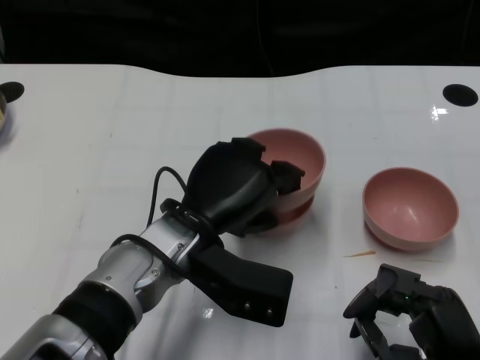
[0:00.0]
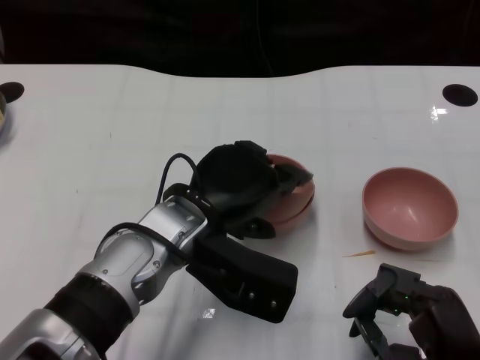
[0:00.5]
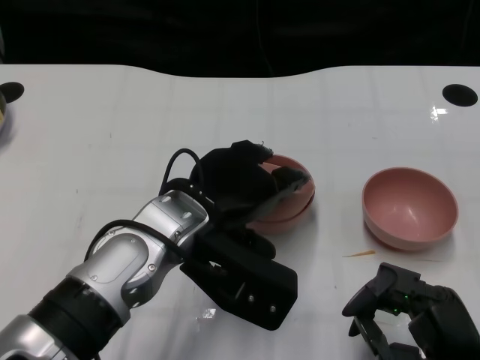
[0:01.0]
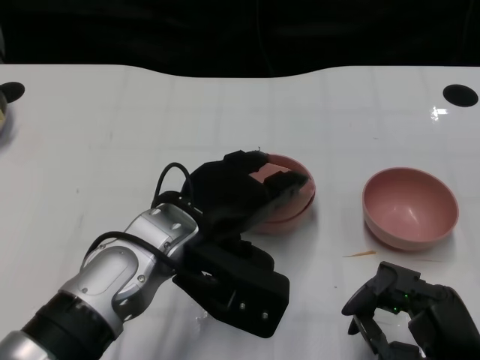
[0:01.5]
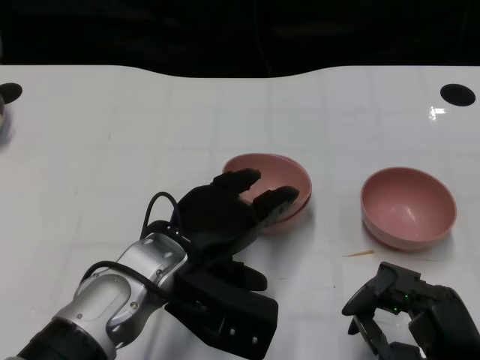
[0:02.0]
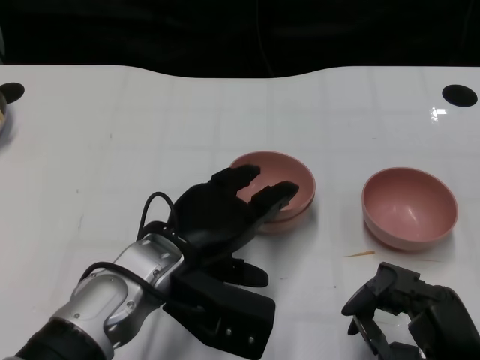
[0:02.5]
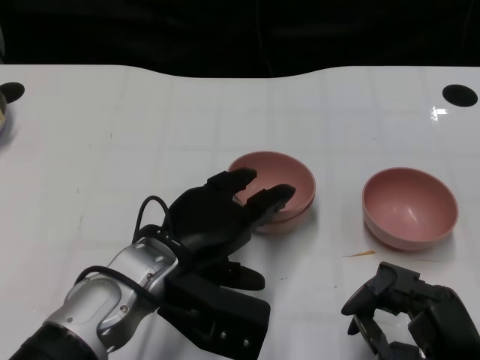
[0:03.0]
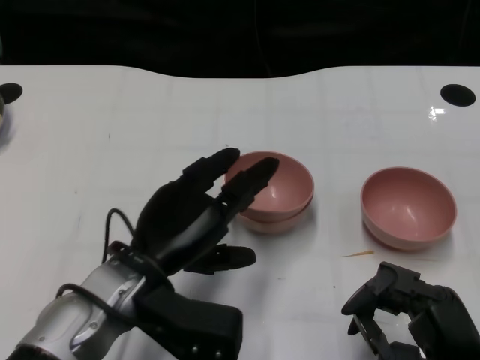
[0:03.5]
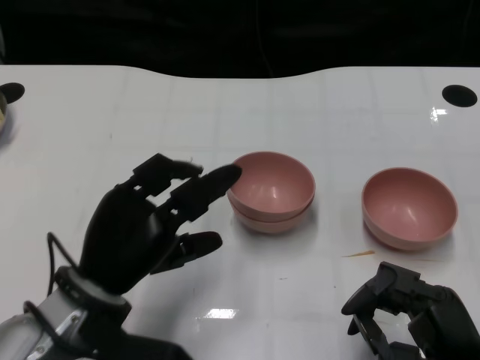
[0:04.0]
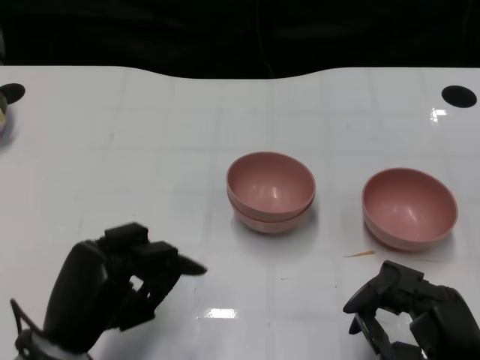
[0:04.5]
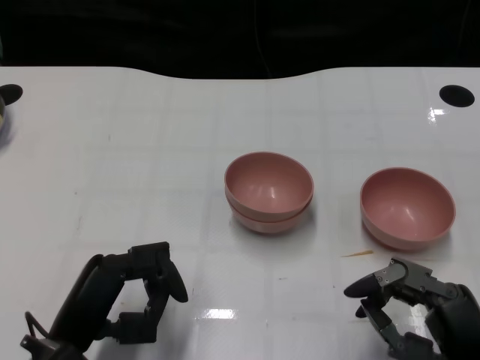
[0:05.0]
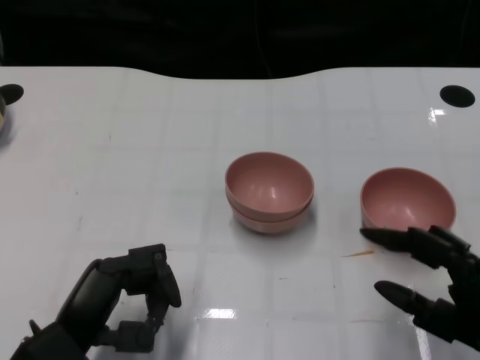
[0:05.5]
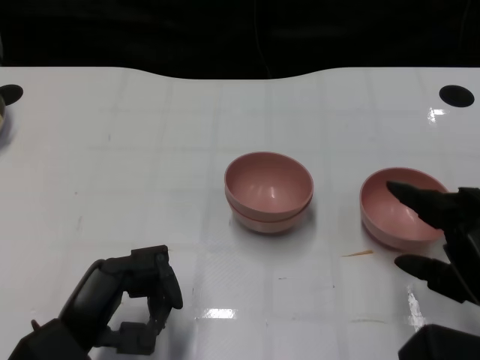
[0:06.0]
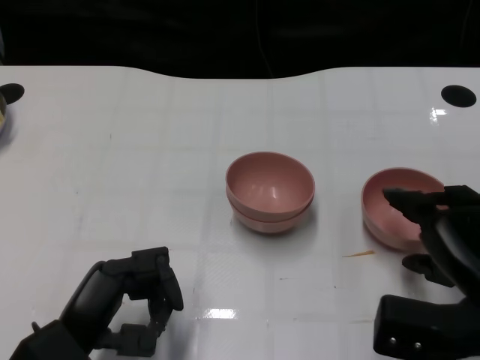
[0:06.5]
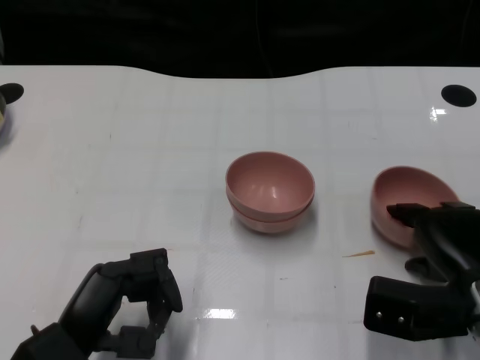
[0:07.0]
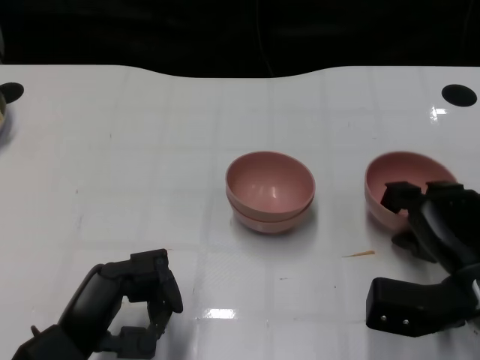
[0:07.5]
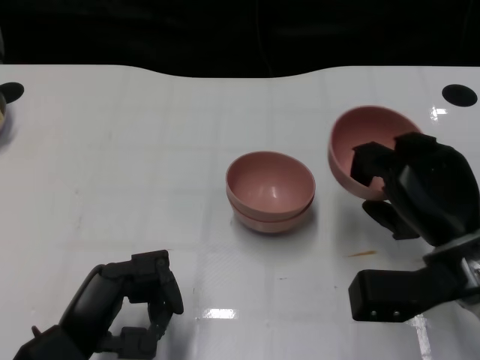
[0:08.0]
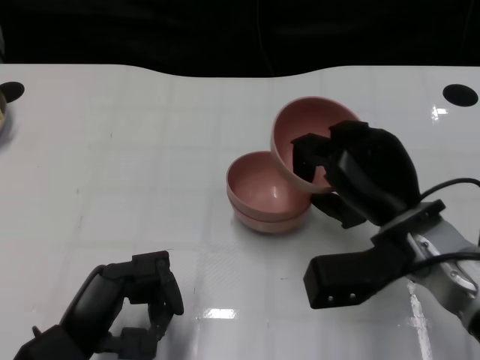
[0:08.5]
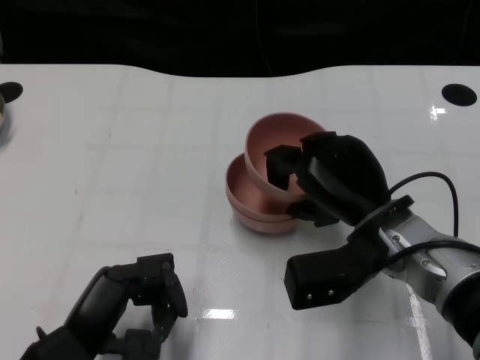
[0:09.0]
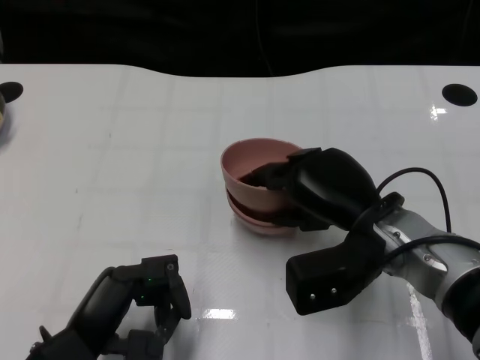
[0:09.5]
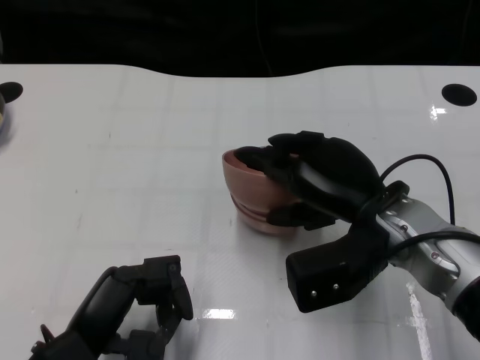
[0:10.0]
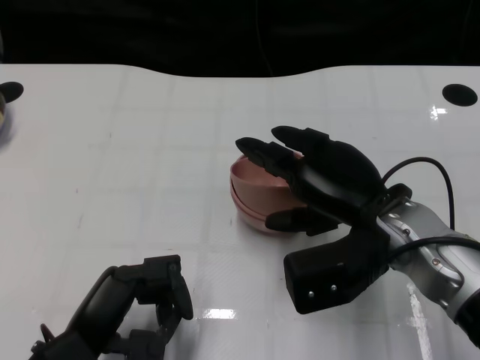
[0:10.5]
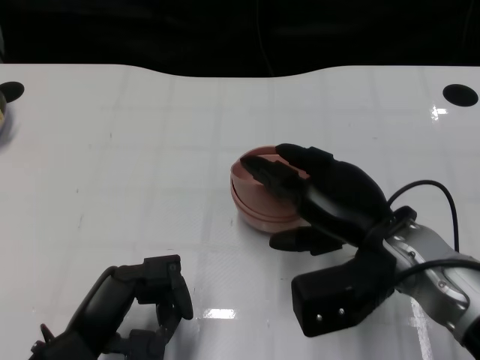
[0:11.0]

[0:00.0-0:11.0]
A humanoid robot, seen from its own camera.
Task of the whole recording: Pick up the bowl on one side of the table and place it on top of the middle bowl, then pick up the bowl on the other side of the table and place it on top of the middle bowls.
Step, 0:00.0 to 0:03.5: Place the bowl on the left onto the bowl in the middle with left gripper.
Step, 0:04.0 to 0:07.0: Grasp the bowl on the right with the right gripper.
0:03.5 to 0:05.5: The left hand is displaced to the left, backward and downward by roughly 10 cm.
0:05.5 to 0:07.5: The right hand shifts some 10 cm forward.
0:07.5 to 0:09.0: The right hand travels to the left by about 10 cm.
0:09.0 to 0:11.0: There are only small adjustments of the hands.

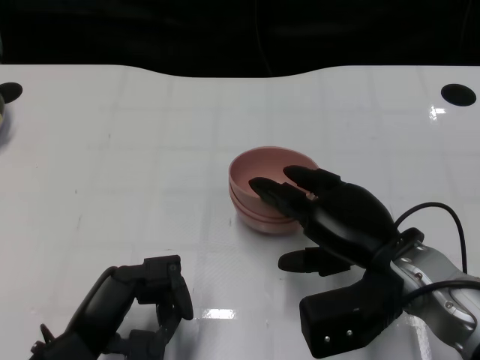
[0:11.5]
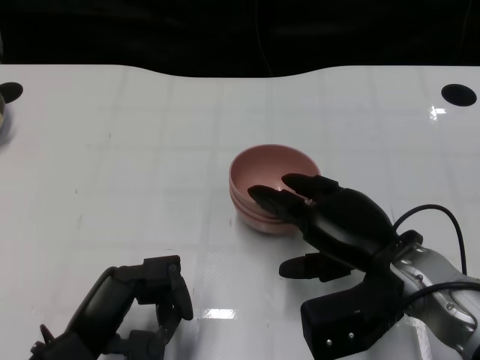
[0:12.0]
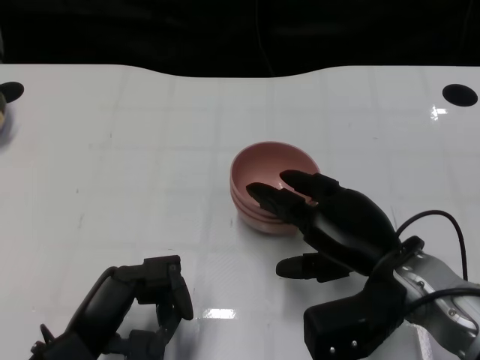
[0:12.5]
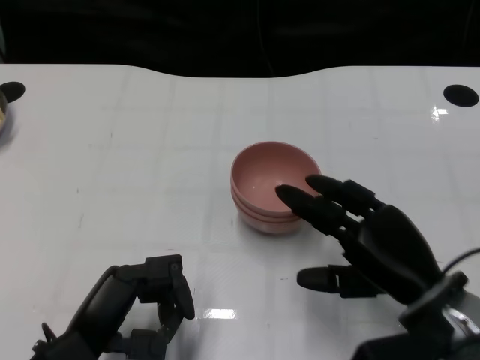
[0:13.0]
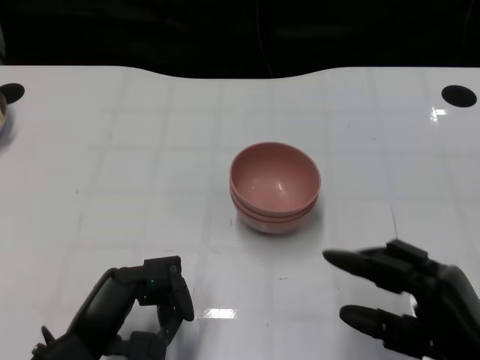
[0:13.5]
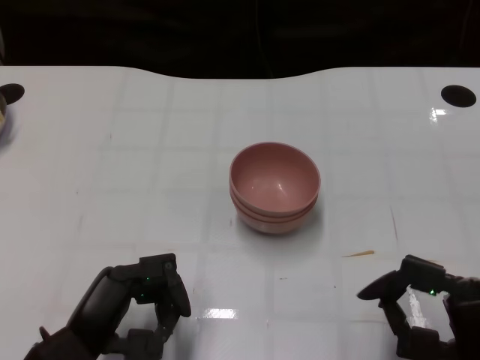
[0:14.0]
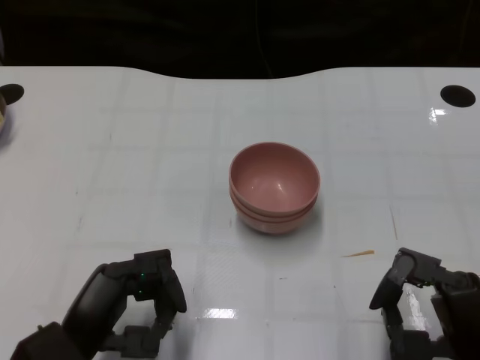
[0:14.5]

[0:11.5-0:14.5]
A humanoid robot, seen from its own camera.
Task of the whole recording: Pick up the bowl on one side of the table and place it on top of the middle bowl, then pick up the bowl on the other side of the table and place it on top of the middle bowls.
0:11.5 to 0:13.0: There are only small adjustments of the hands.
0:13.0 to 0:14.5: The right hand travels backward by roughly 5 cm.

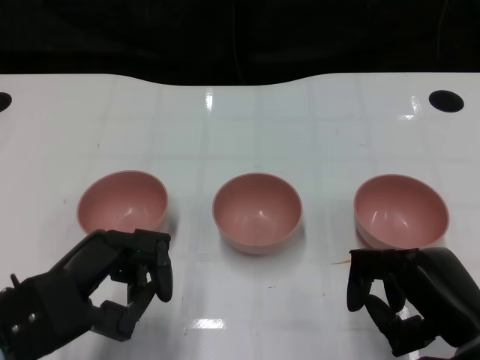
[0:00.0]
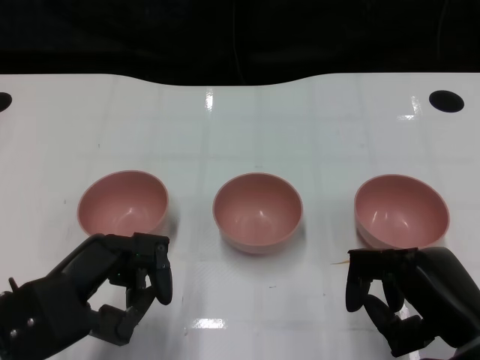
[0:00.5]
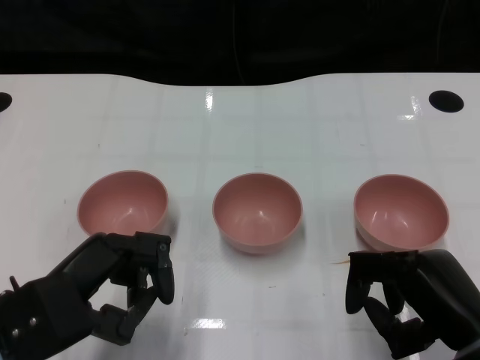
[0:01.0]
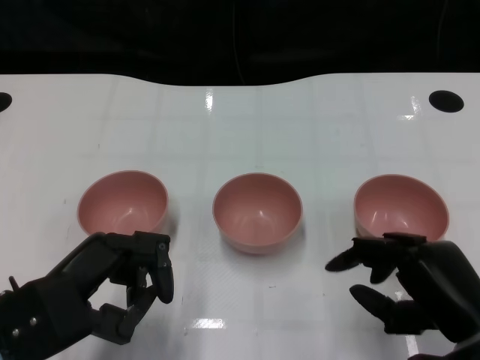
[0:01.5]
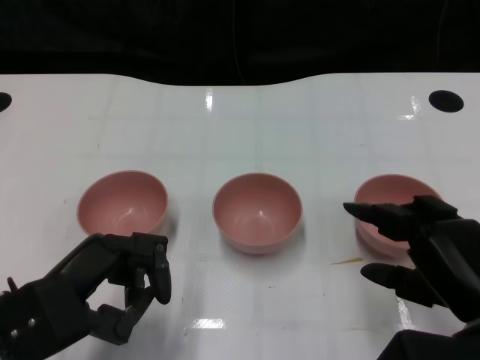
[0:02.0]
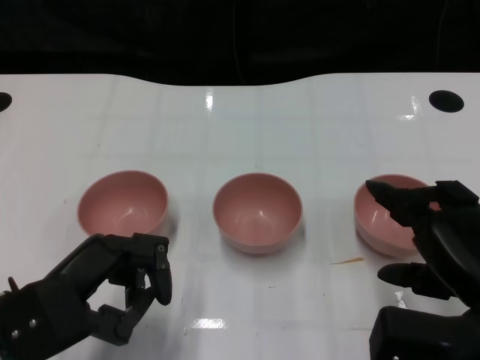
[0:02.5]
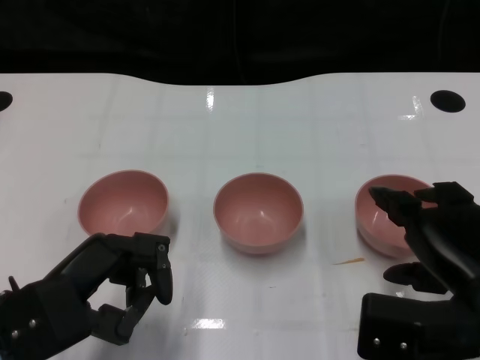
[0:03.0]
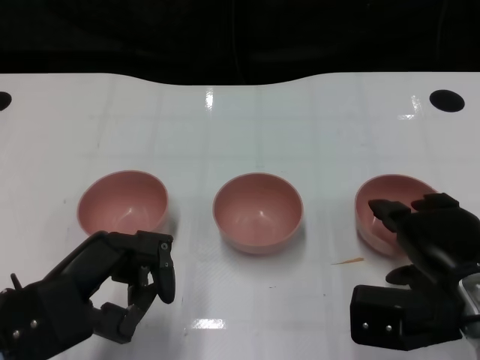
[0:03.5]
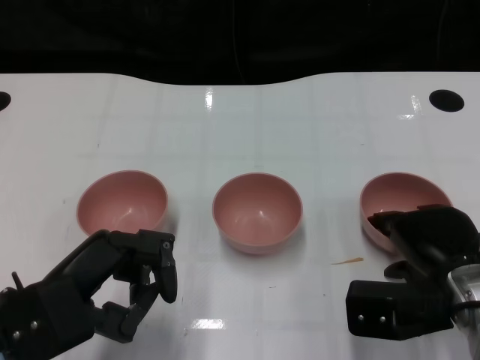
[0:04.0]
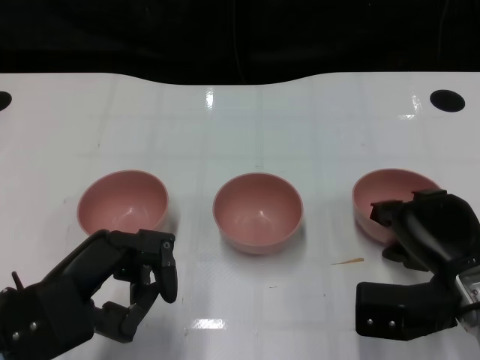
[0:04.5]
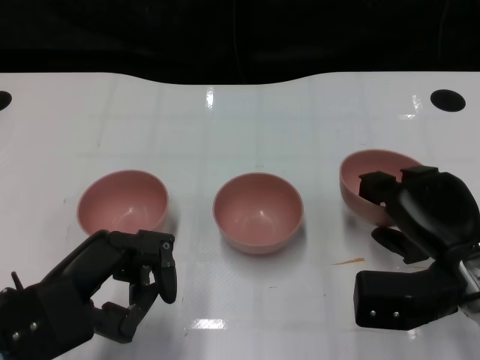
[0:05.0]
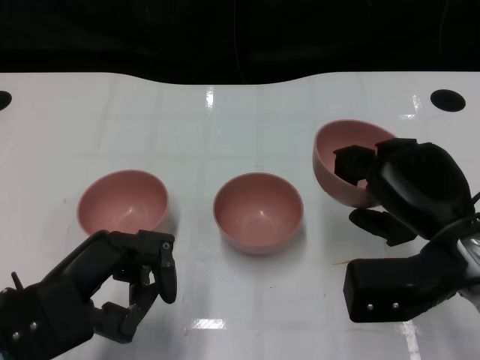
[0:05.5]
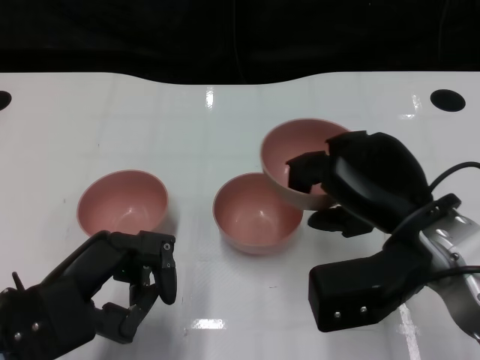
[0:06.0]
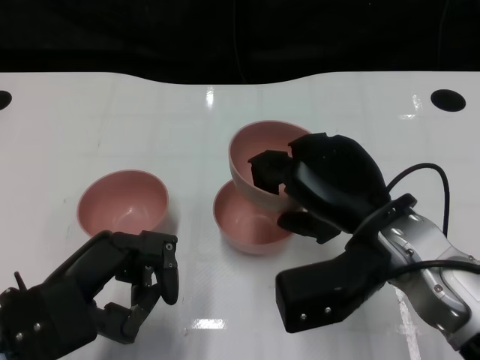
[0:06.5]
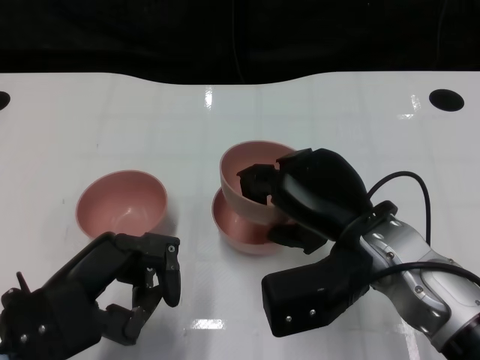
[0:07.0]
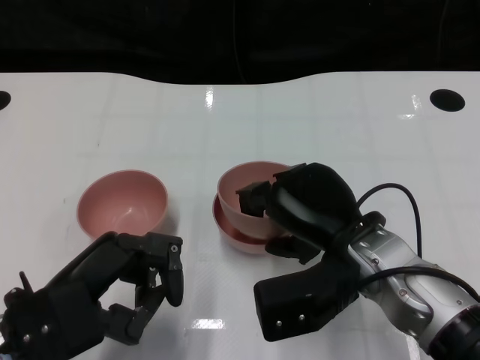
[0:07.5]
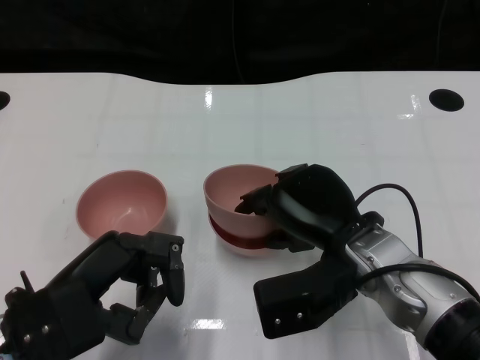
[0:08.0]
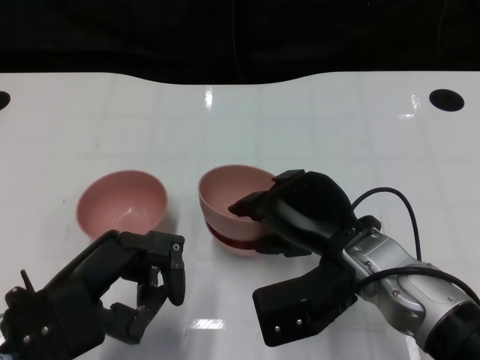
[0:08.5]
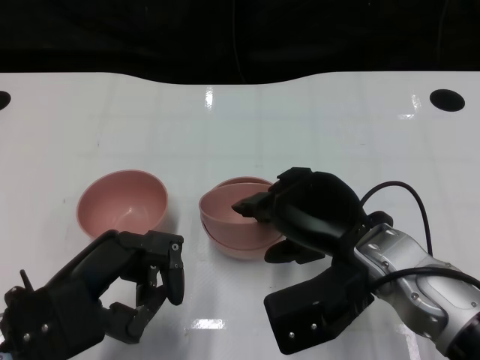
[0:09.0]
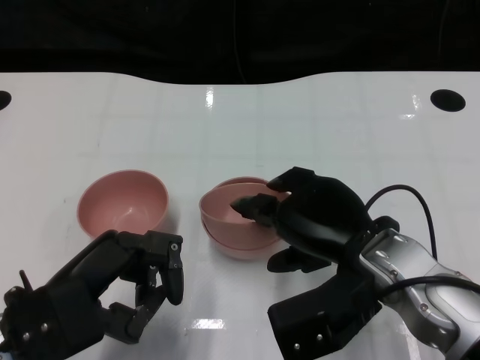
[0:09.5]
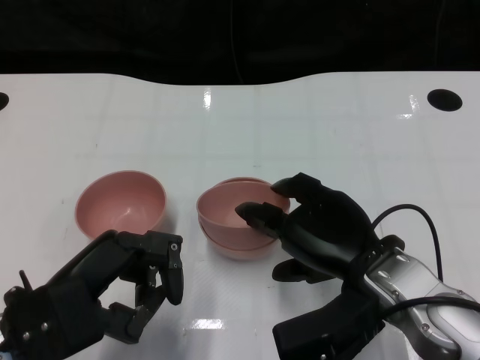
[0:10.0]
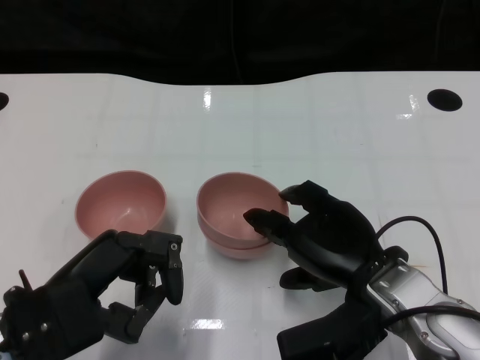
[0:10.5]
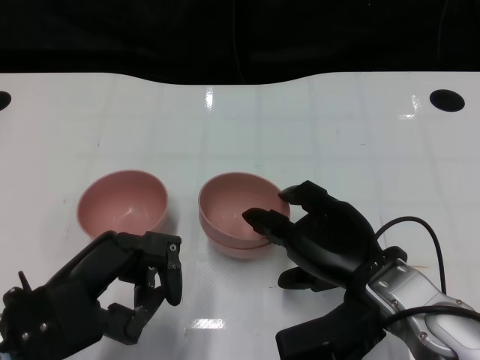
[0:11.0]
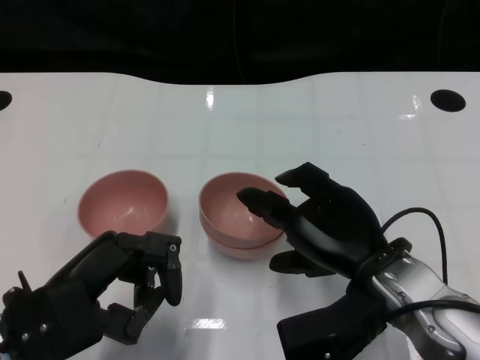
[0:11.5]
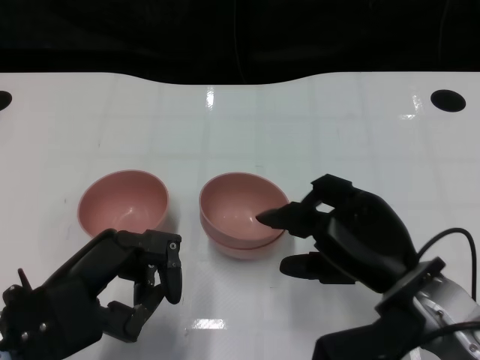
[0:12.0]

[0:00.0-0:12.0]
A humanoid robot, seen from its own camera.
Task of the whole recording: Pick up the bowl on one side of the table and place it on top of the middle bowl, then pick up the bowl on the other side of the table and place it on top of the middle bowls.
Step, 0:01.5 to 0:04.5: Grasp the bowl on the right with the right gripper.
Step, 0:05.0 to 0:12.0: Place the bowl on the right onto the bowl in the middle with right gripper.
0:02.0 to 0:04.0: The right hand is displaced forward by roughly 5 cm.
0:04.0 to 0:06.0: The right hand travels upward by some 10 cm.
0:06.0 to 0:08.0: The right hand moves to the left and downward, approximately 10 cm.
0:08.0 to 0:10.0: The hands stay close to where they were, moving slightly.
